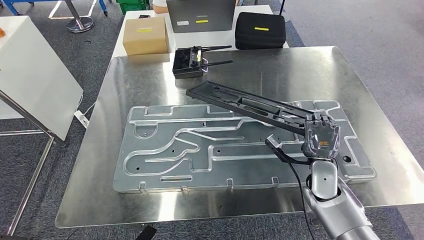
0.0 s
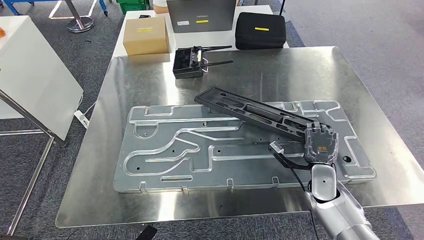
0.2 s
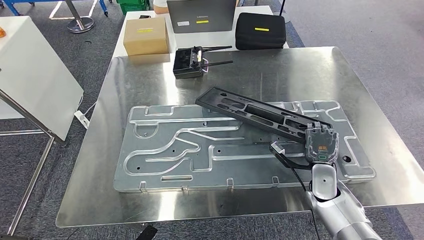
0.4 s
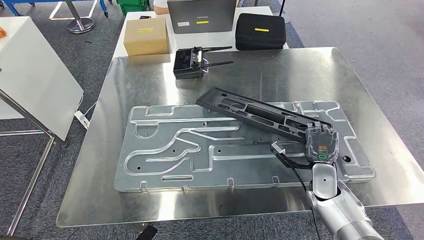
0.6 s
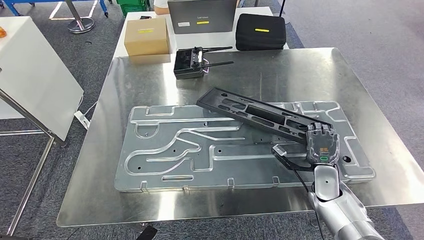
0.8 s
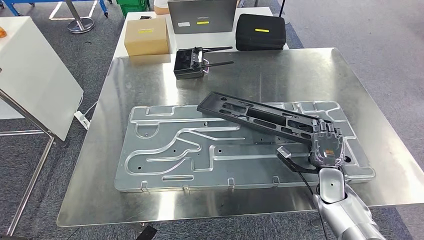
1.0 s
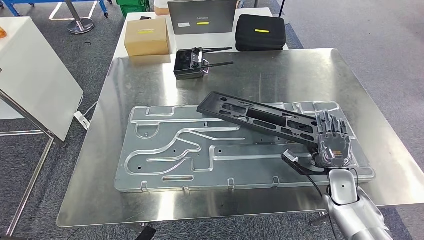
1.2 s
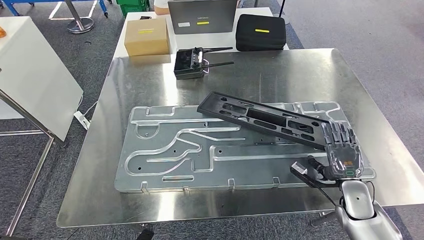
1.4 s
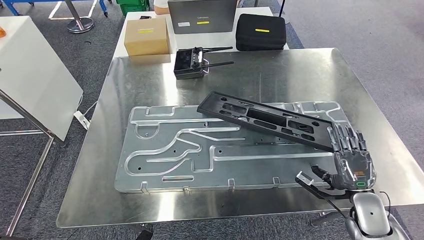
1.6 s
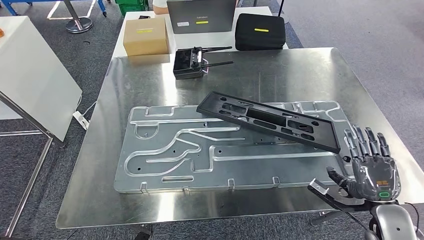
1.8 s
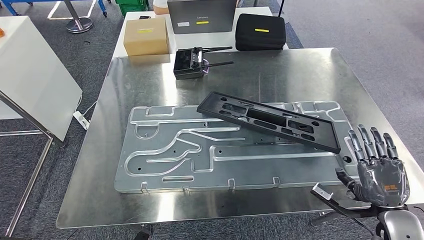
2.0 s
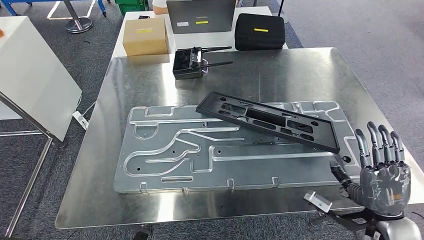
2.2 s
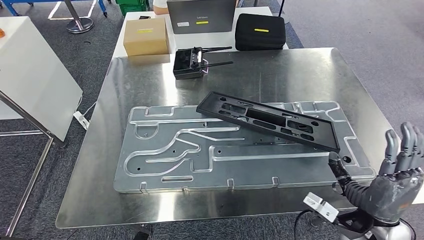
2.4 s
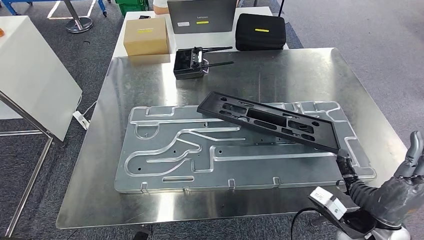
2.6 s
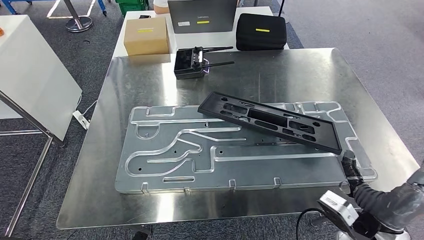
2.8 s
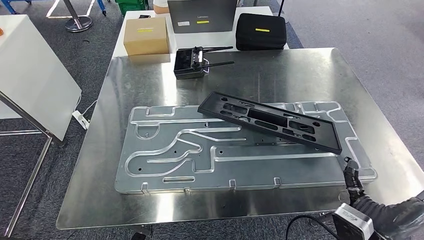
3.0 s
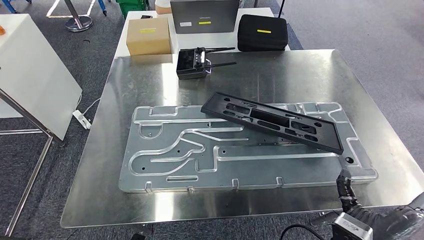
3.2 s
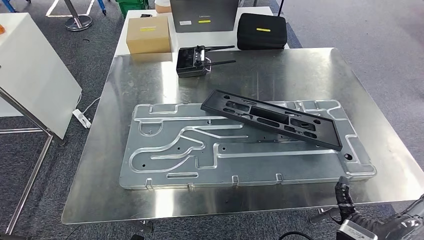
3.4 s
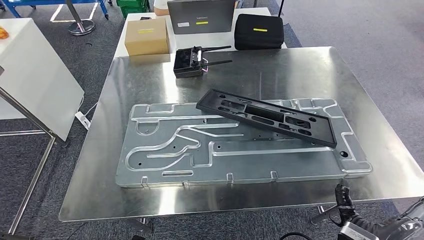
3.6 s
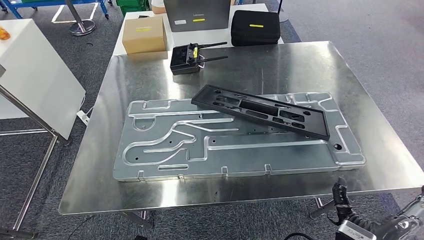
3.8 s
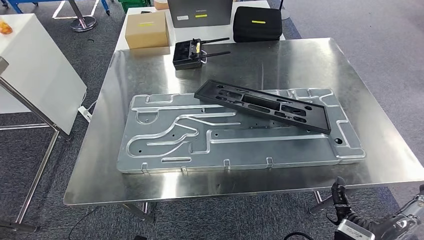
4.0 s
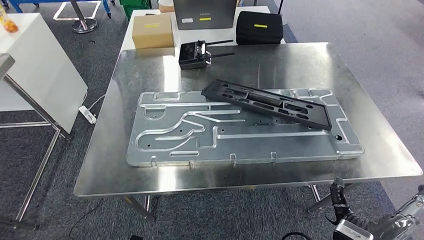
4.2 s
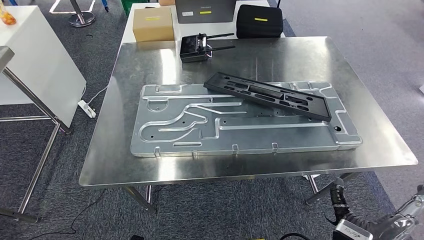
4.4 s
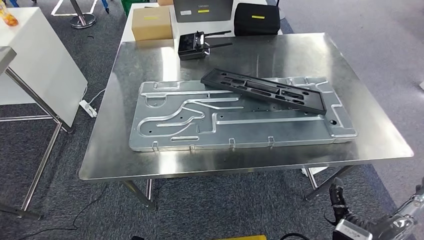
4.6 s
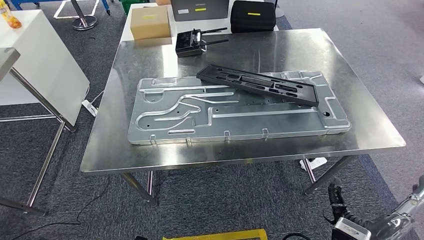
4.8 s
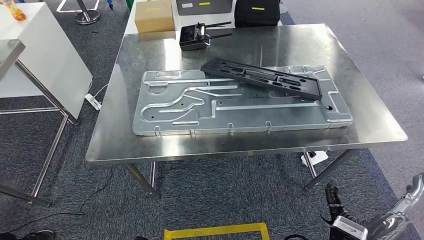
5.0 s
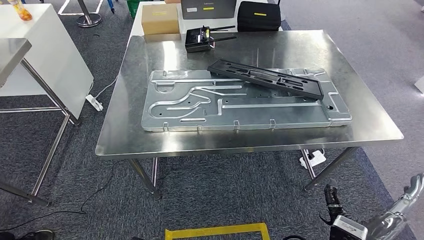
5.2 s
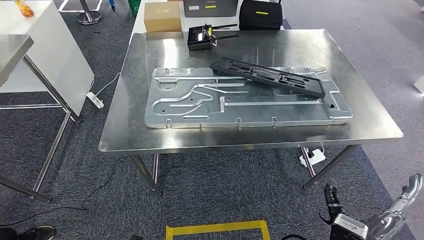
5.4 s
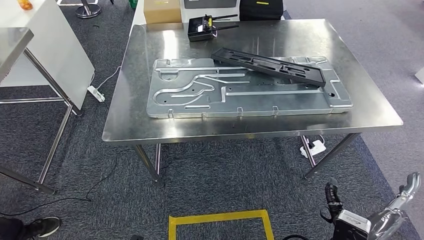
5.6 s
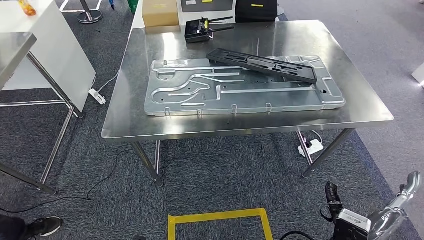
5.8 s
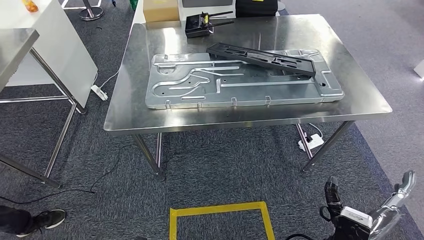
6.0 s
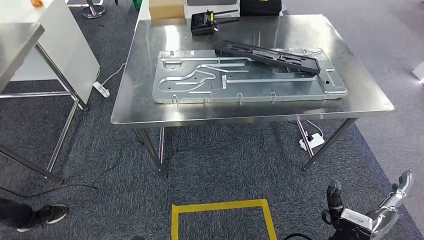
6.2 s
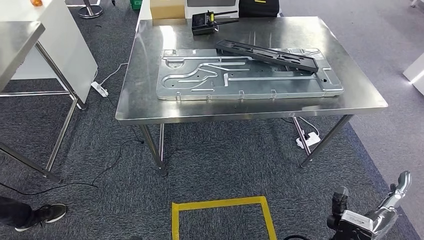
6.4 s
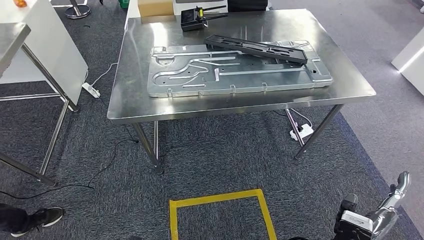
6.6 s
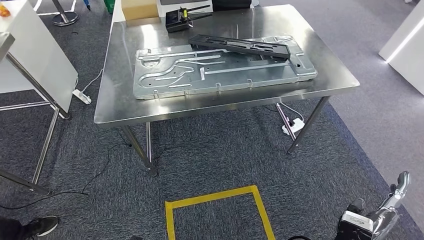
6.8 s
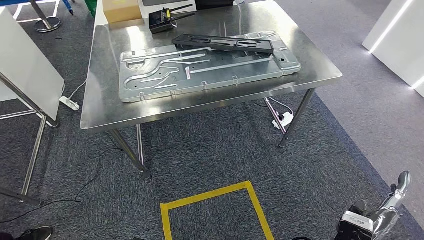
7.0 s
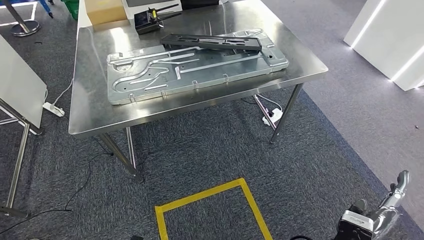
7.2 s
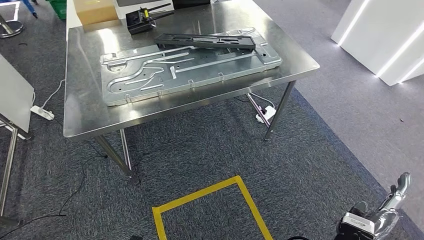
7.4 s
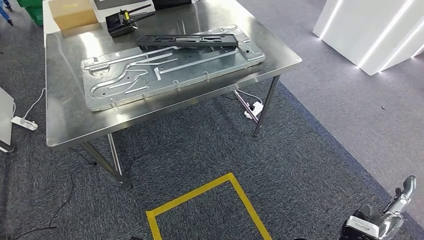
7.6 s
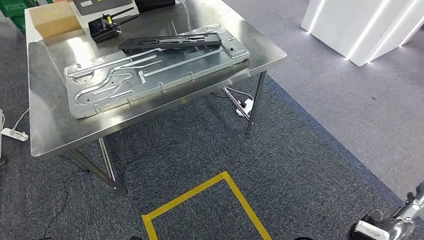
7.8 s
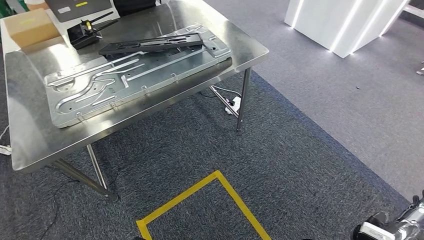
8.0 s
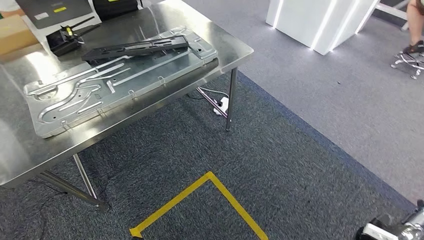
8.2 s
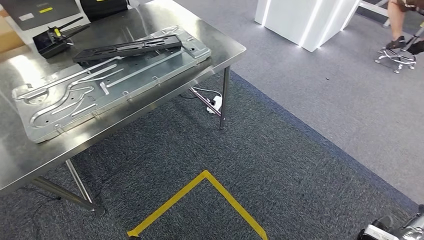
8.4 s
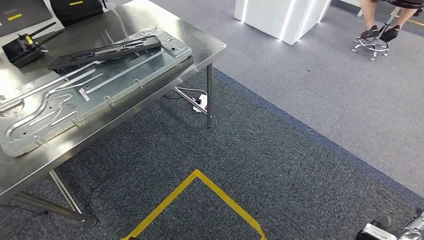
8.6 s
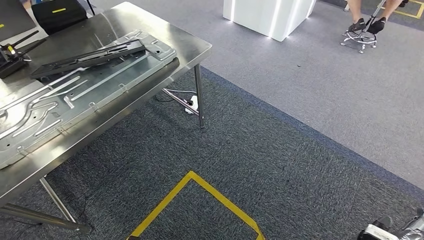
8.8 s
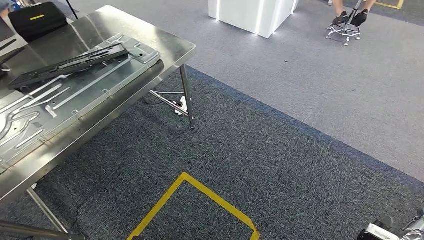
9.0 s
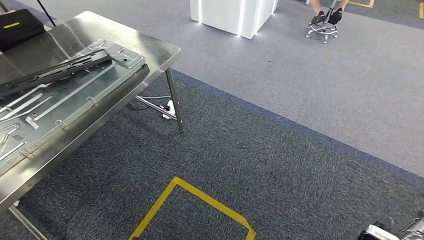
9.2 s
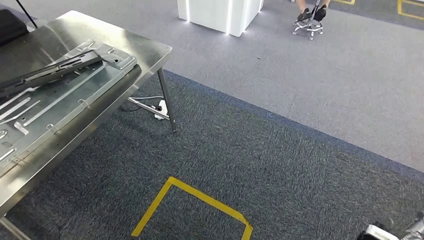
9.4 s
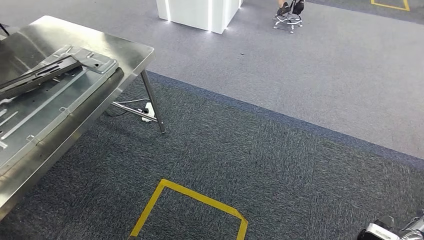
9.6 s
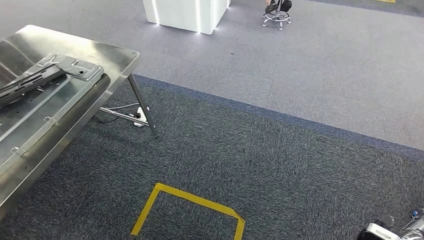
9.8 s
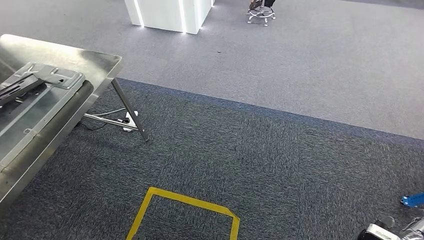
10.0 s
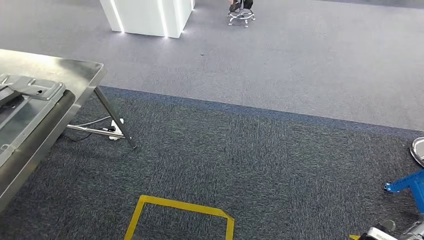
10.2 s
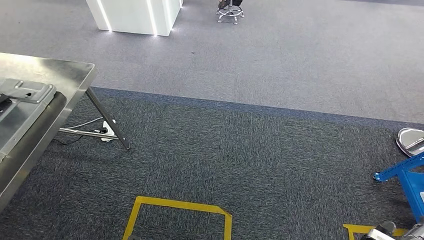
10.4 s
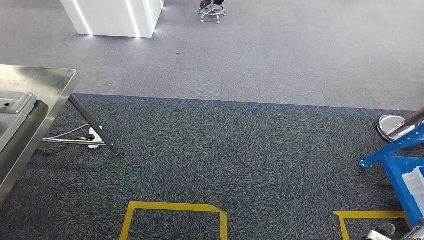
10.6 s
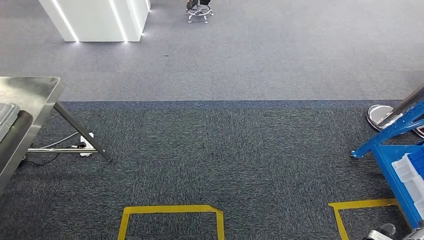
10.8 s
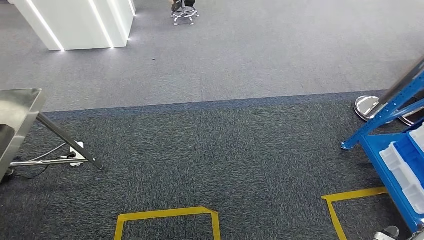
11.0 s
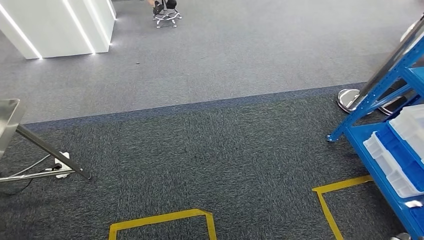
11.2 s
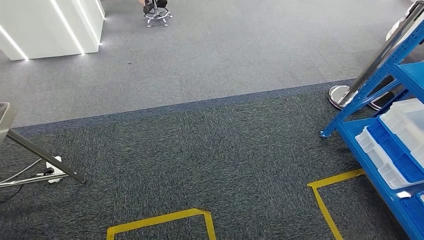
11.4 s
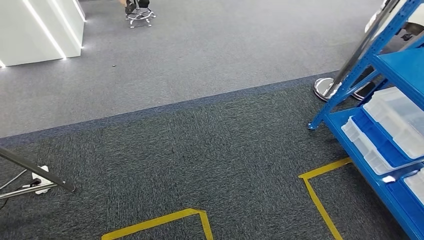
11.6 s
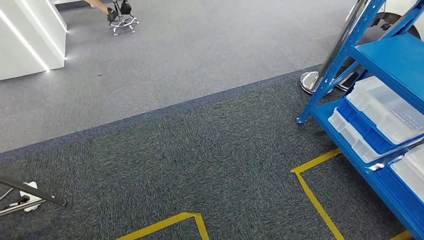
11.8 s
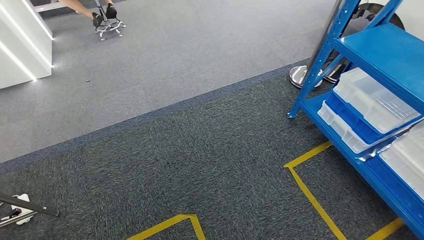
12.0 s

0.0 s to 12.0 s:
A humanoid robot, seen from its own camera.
0.0 to 1.6 s: The right hand travels to the right and backward by some 15 cm.
1.6 to 3.0 s: The right hand moves to the left, backward and upward, roughly 15 cm.

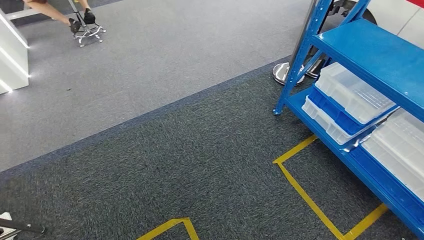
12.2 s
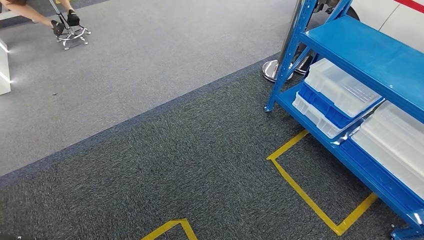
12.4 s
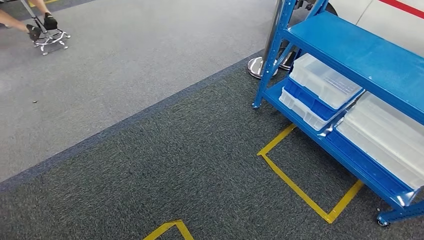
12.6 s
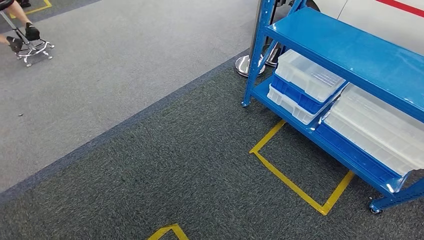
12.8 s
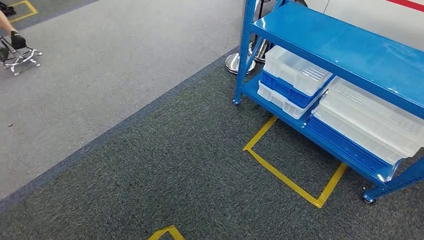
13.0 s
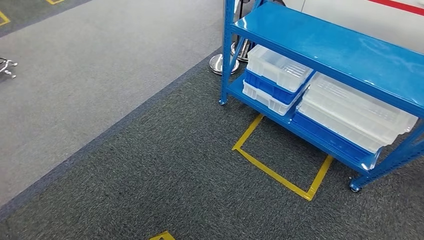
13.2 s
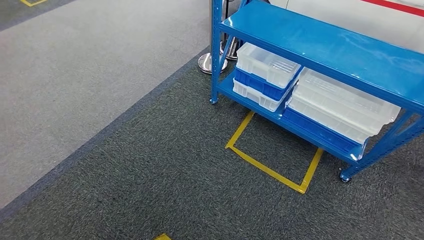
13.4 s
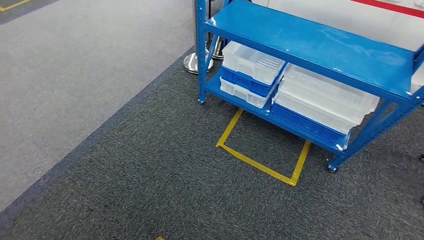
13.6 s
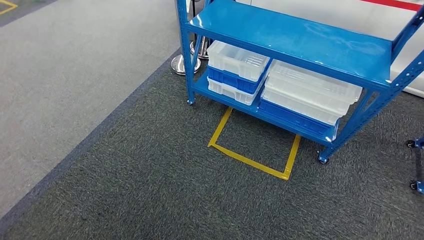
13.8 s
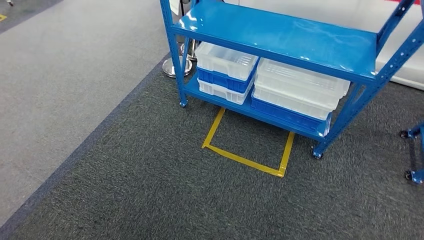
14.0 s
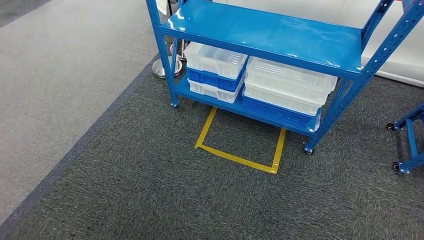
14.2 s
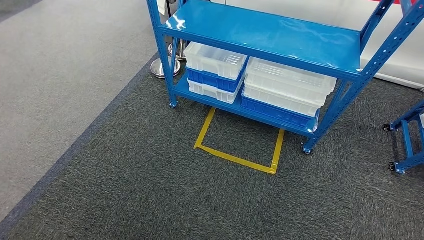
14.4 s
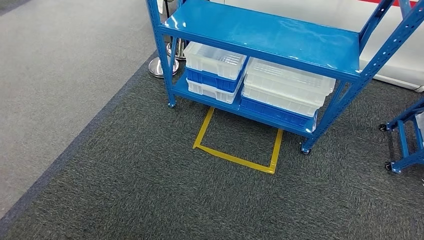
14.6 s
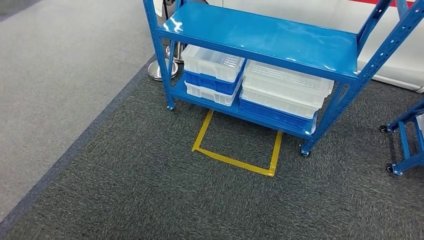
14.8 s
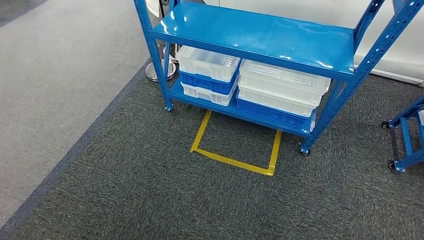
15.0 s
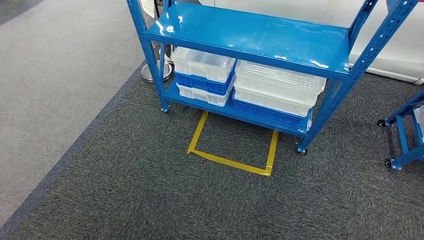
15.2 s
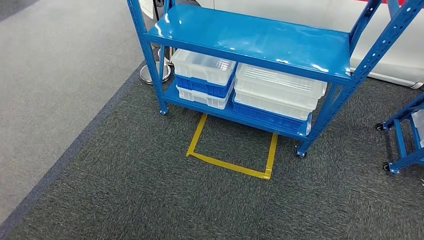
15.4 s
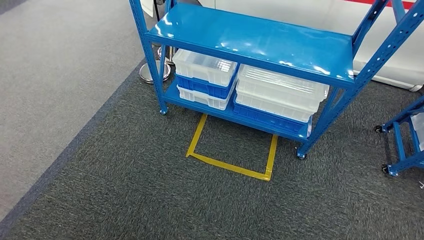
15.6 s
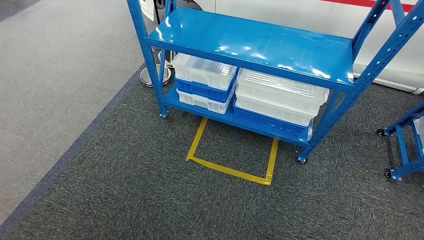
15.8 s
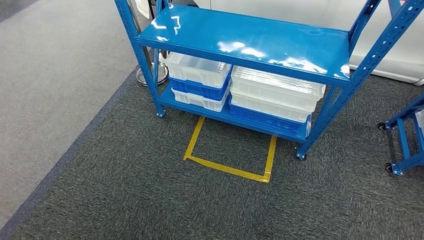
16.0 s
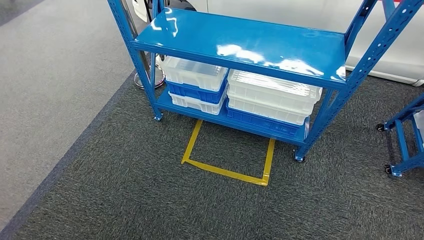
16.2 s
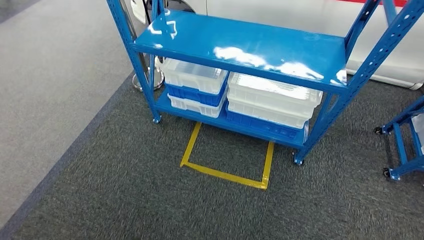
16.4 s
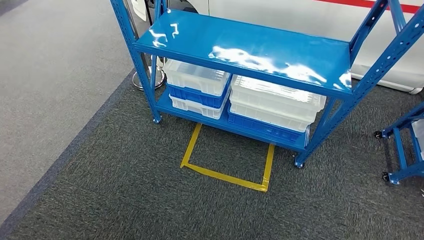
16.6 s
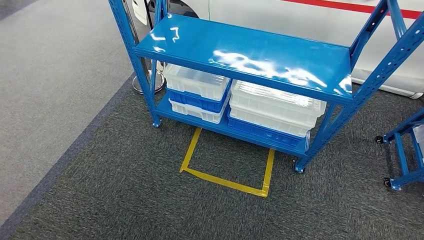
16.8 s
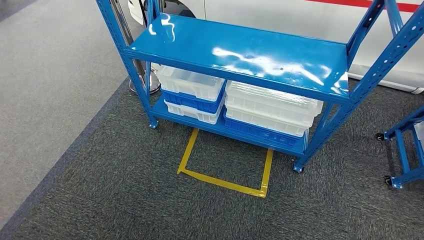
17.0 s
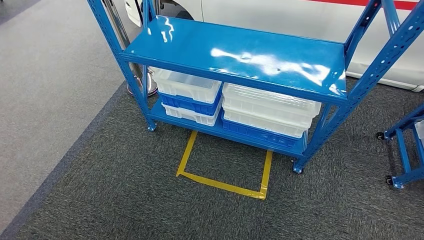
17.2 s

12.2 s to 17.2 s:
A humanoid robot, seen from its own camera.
Step, 12.2 to 17.2 s: Return to the initial position at the shelf.
